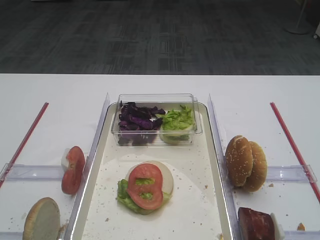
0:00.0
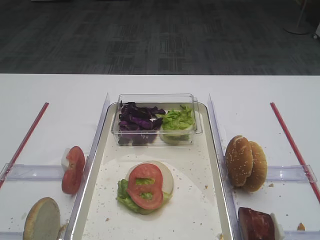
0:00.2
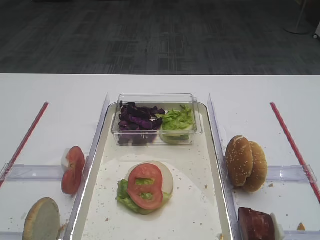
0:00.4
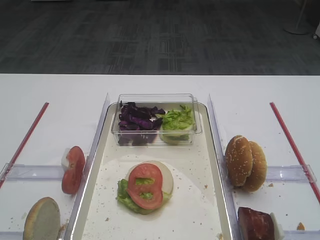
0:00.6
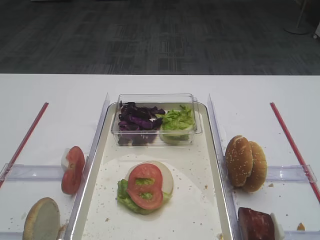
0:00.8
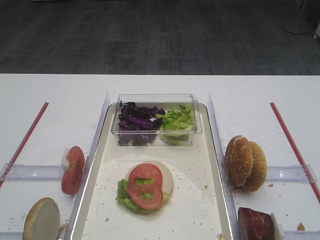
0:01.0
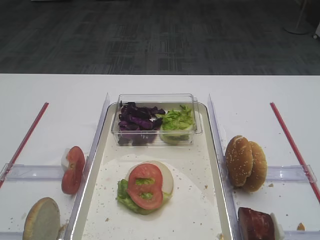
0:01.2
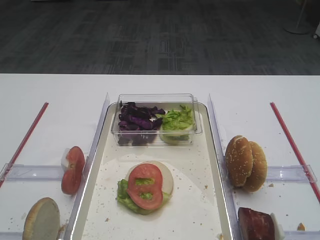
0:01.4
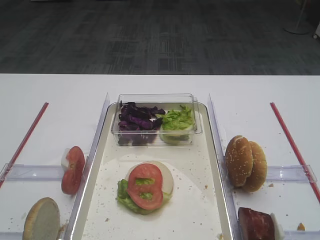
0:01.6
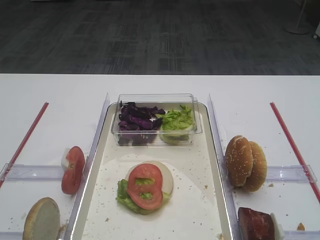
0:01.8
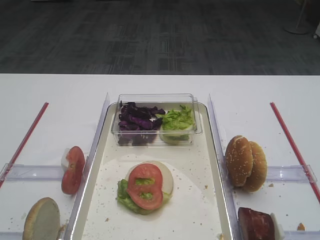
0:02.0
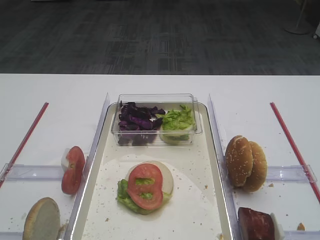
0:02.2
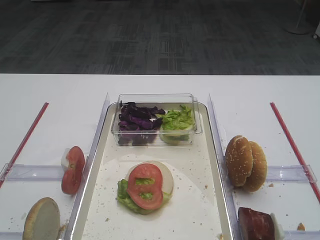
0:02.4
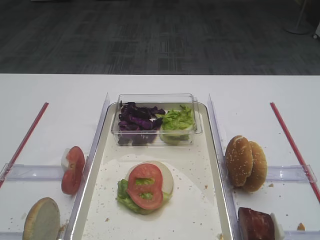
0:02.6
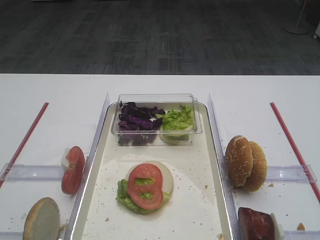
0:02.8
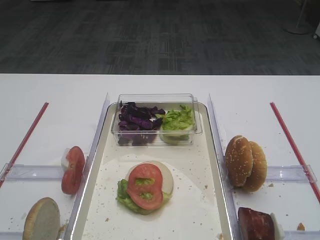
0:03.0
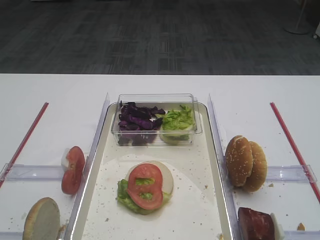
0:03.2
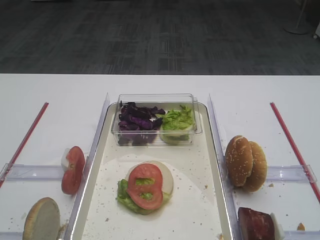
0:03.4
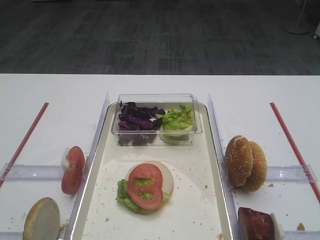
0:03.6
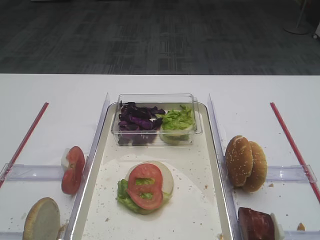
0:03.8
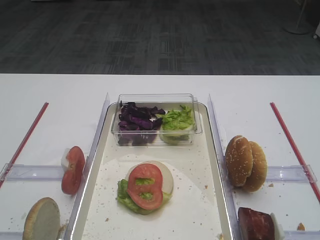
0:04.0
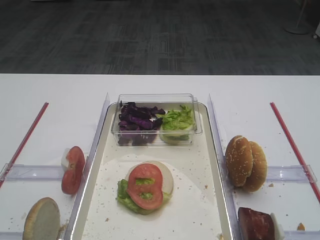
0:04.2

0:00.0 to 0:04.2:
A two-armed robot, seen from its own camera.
0:01.4 to 0:04.2: Neither gripper changes place.

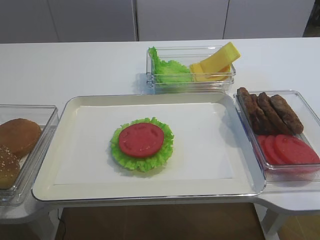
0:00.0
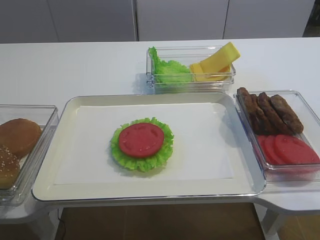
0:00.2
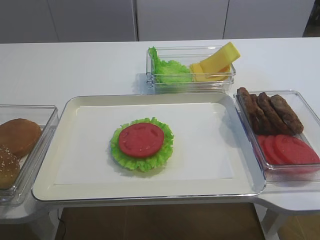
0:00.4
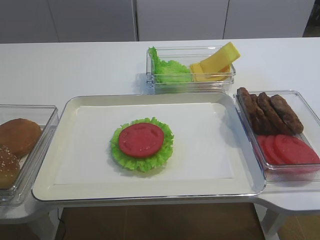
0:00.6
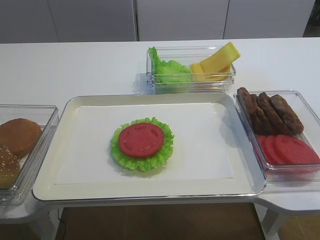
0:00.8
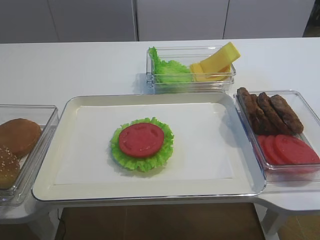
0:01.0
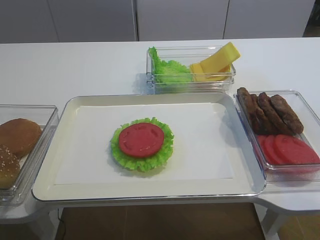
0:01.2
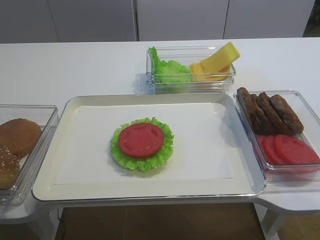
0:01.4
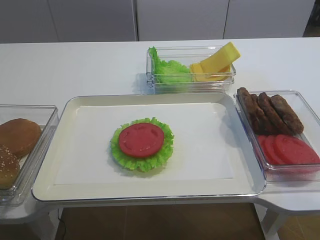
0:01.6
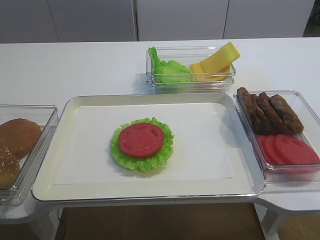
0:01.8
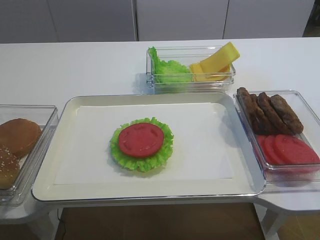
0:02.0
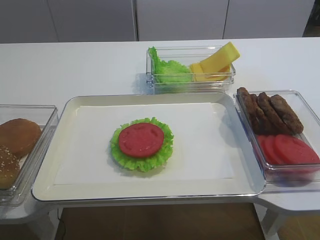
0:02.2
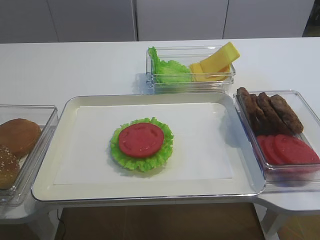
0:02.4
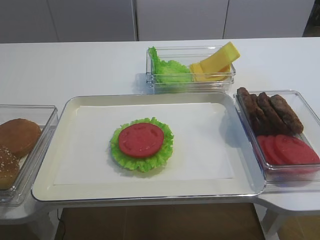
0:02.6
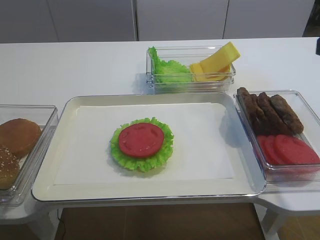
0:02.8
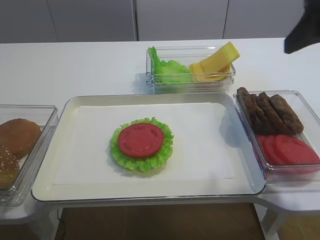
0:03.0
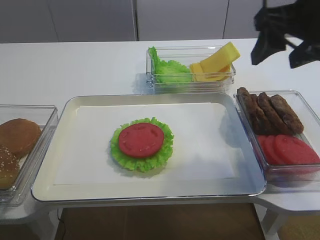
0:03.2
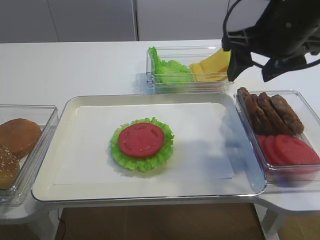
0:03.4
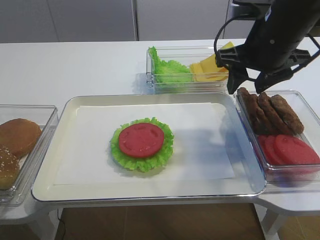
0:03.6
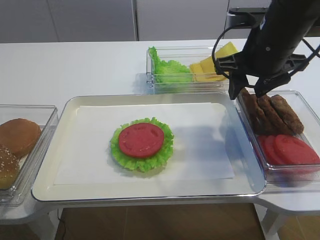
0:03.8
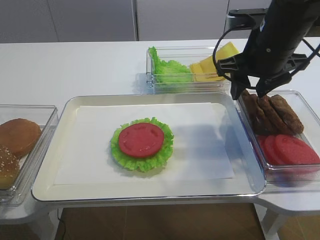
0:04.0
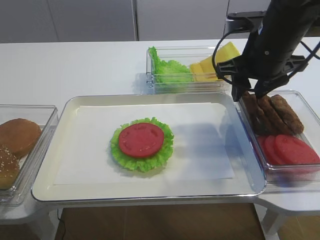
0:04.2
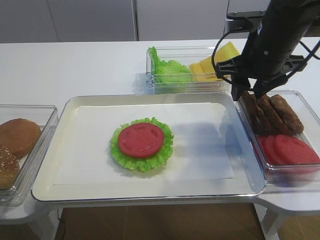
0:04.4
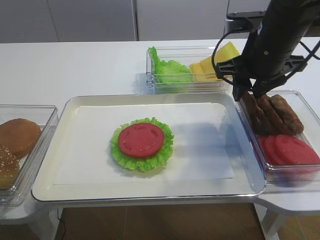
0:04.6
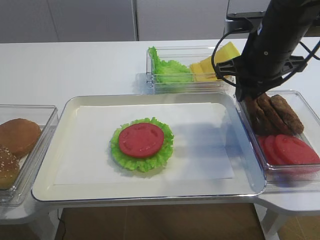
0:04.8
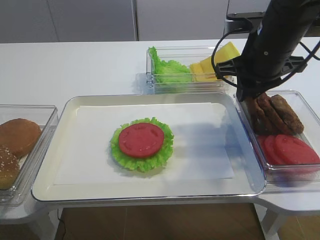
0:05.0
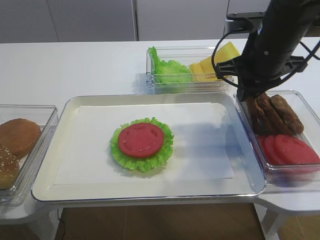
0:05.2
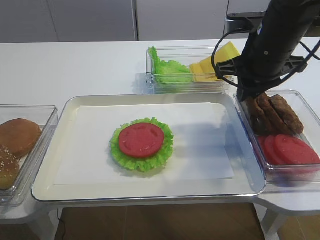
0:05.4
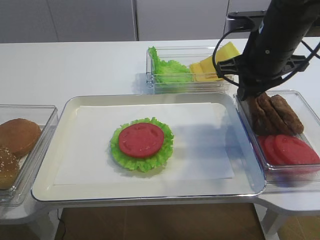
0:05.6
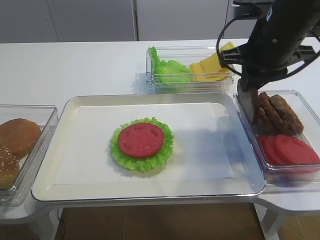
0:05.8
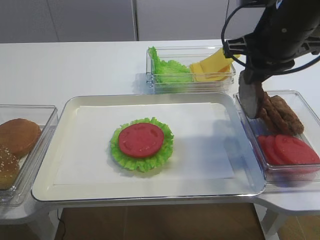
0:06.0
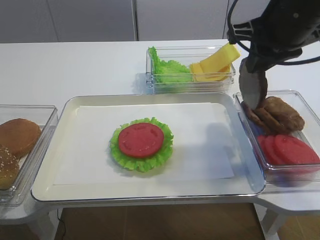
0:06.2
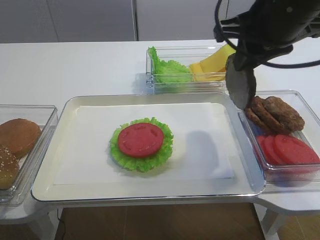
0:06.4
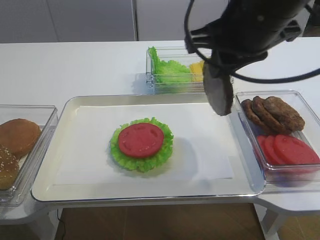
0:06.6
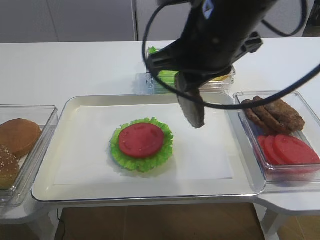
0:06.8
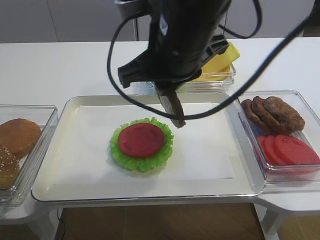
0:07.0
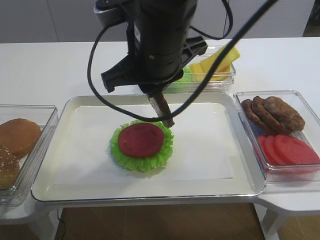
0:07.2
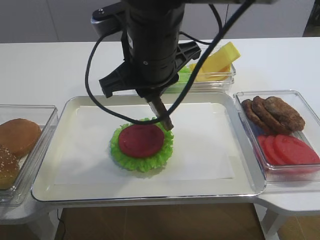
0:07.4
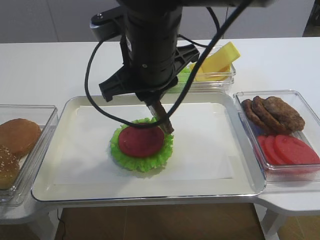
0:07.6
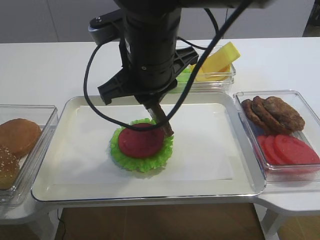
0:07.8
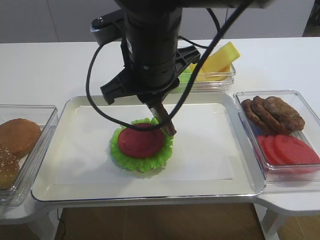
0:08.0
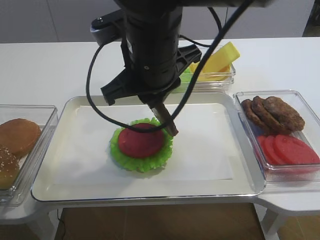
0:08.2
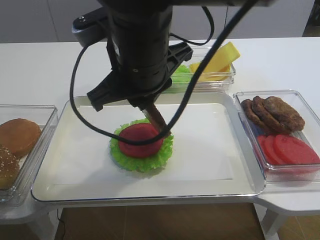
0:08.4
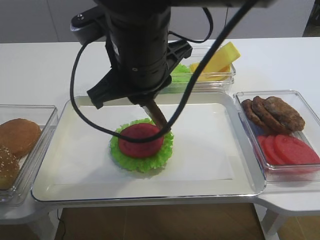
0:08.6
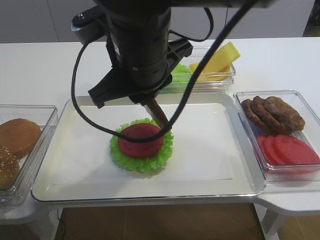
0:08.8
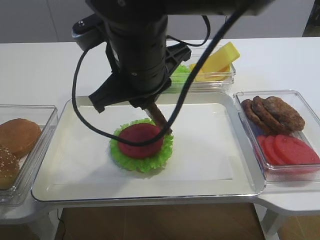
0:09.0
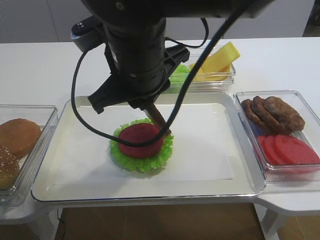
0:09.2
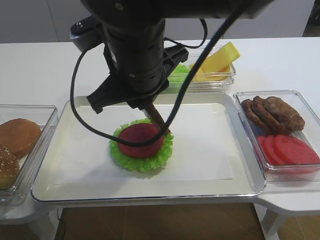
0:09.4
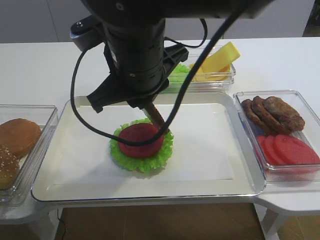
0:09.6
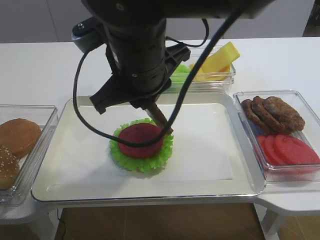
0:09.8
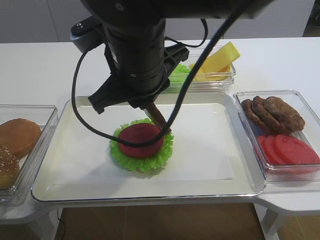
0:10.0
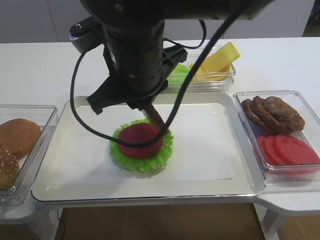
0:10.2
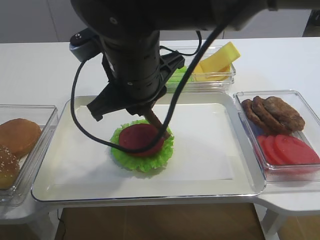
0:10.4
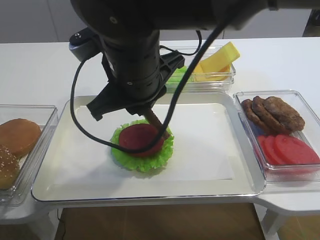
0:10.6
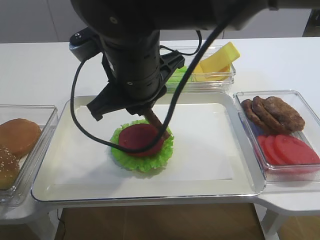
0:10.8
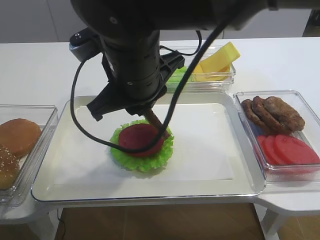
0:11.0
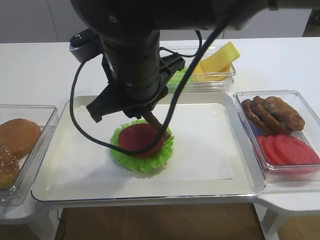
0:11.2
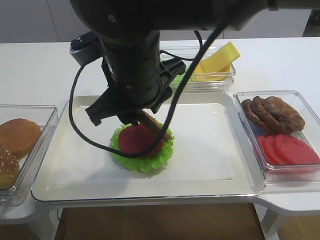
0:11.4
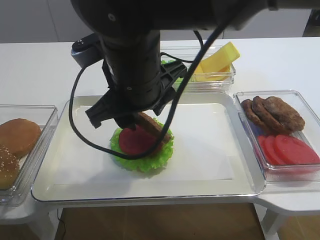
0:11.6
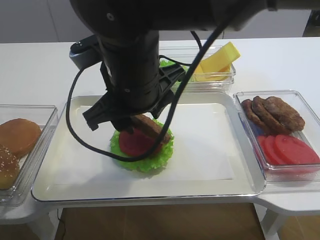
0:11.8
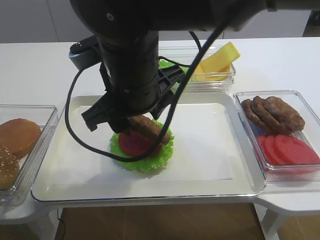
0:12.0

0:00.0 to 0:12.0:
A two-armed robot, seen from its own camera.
Step, 0:00.0 to 0:06.0: Pick up the cutlet with the right gripper.
0:01.6 to 0:03.0: The right gripper shifts about 25 cm forward.
0:03.0 to 0:04.4: The right gripper is displaced forward, downward and to the left by approximately 15 cm, and closes up.
0:04.4 to 0:06.0: The right gripper closes its fingers.
0:06.0 to 0:07.6: The right gripper shifts some 20 cm to the left.
0:07.6 to 0:10.4: The grippers make only small movements.
0:10.4 to 0:12.0: The right gripper opens up.

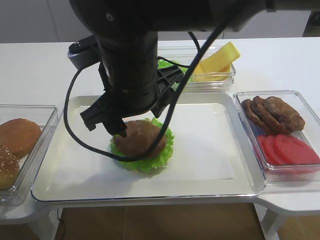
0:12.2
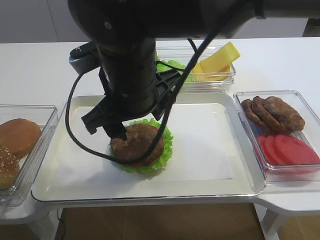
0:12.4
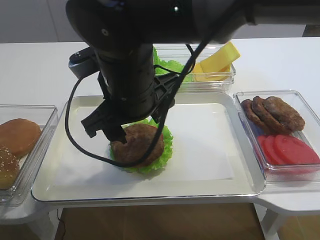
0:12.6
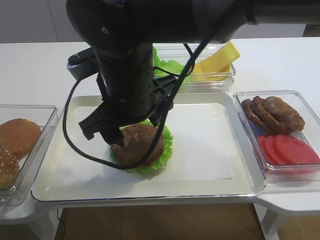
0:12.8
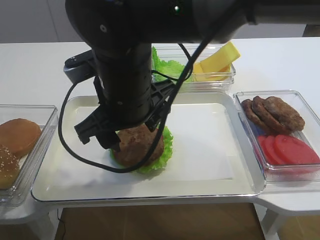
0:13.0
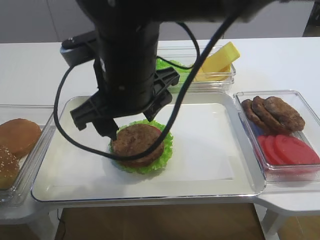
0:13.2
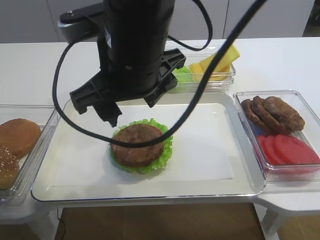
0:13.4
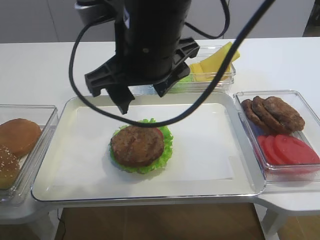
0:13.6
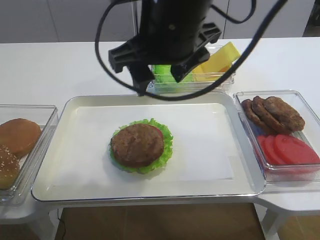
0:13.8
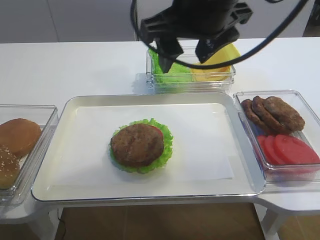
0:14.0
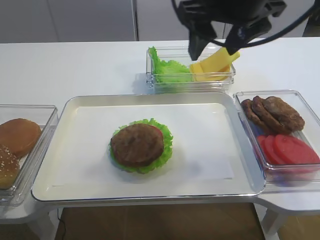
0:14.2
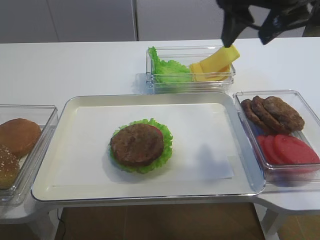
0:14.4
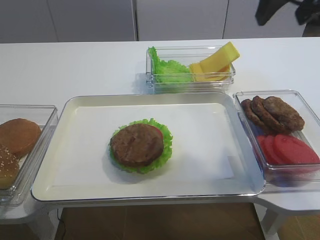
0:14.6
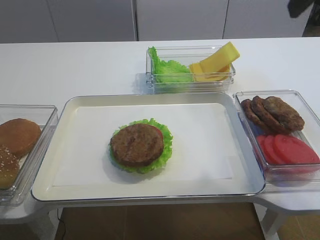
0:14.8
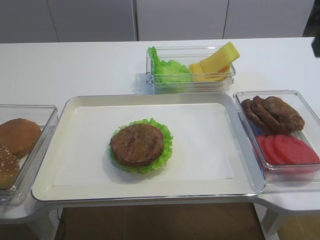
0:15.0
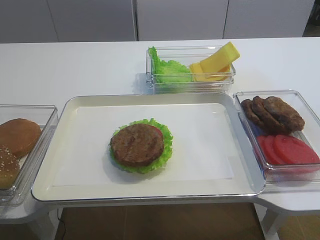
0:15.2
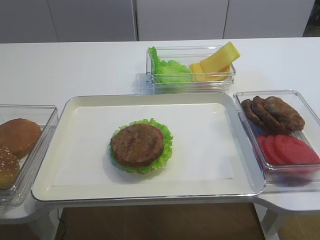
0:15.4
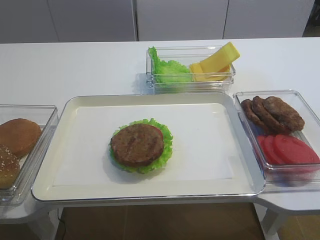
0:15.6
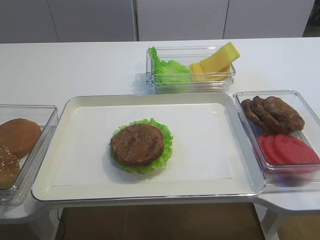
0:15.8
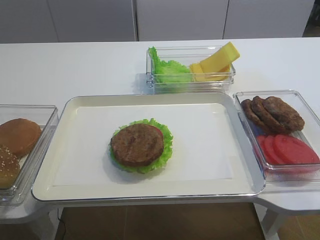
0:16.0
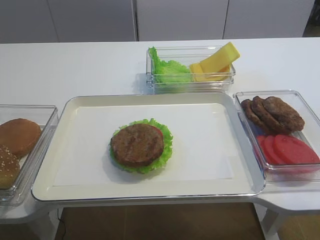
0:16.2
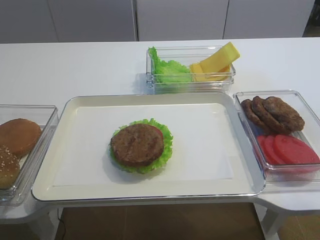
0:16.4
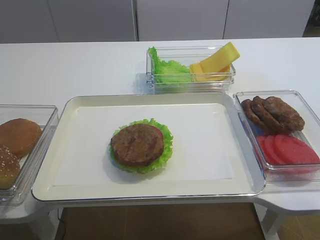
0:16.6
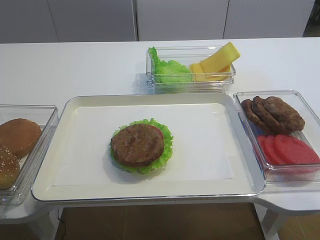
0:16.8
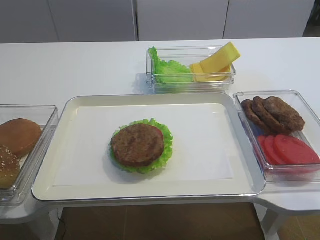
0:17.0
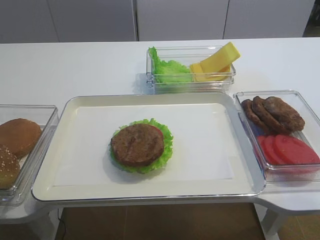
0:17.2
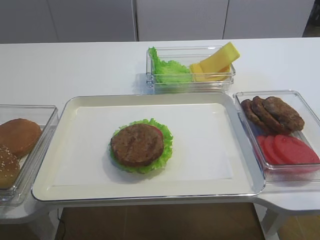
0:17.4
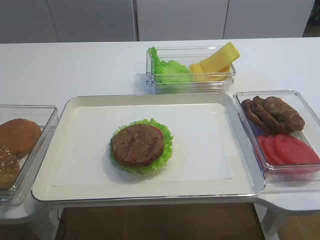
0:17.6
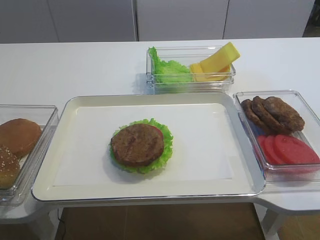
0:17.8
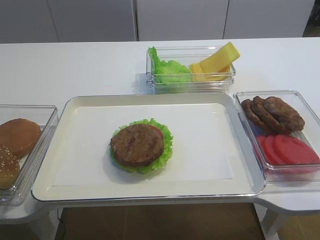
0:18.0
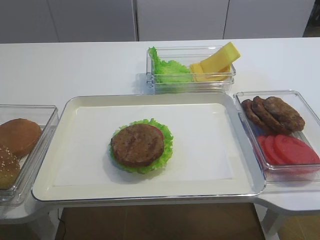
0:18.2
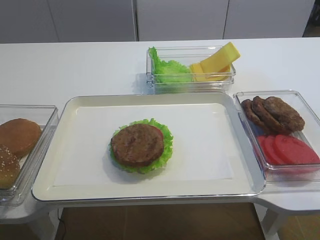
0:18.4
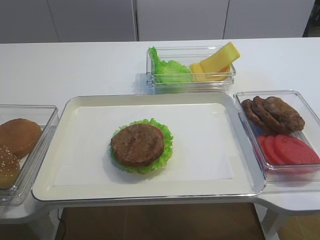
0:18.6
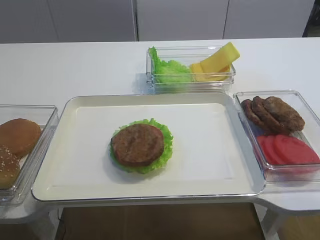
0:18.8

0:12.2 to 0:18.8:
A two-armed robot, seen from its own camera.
0:12.2 to 0:13.8: The right gripper travels upward and to the right by roughly 10 cm.
0:13.8 to 0:15.4: The right gripper travels to the right and backward by about 30 cm.
0:15.4 to 0:17.2: The right gripper is displaced backward and downward by approximately 15 cm.
